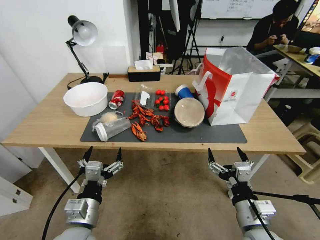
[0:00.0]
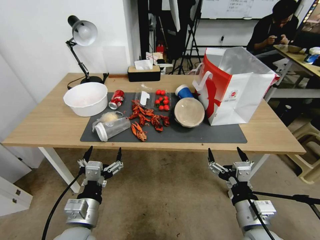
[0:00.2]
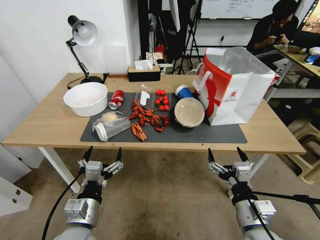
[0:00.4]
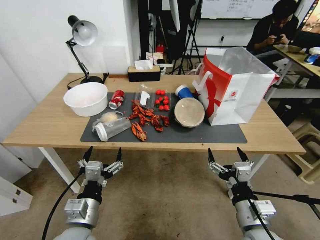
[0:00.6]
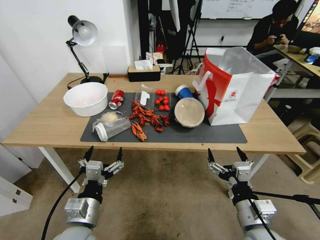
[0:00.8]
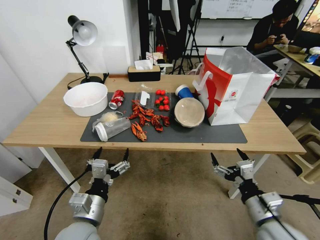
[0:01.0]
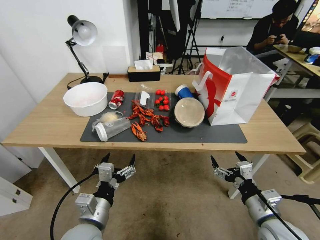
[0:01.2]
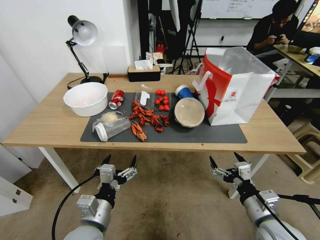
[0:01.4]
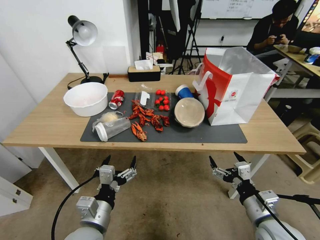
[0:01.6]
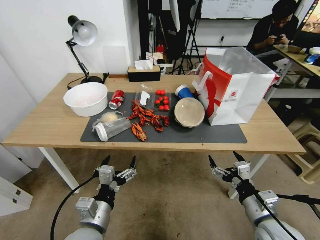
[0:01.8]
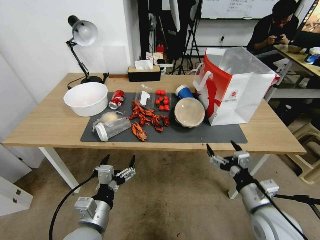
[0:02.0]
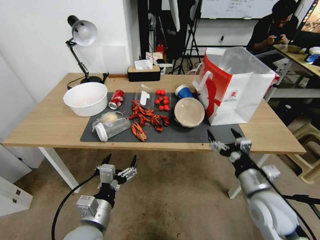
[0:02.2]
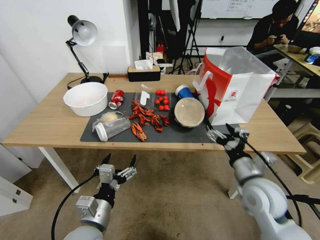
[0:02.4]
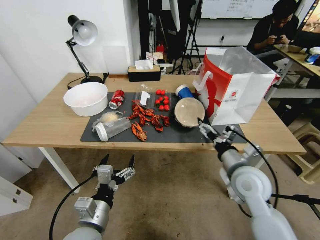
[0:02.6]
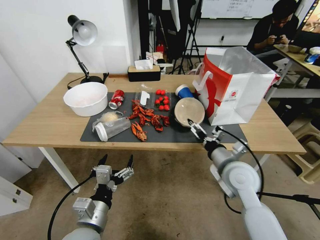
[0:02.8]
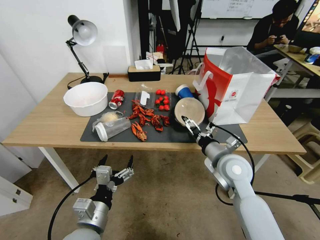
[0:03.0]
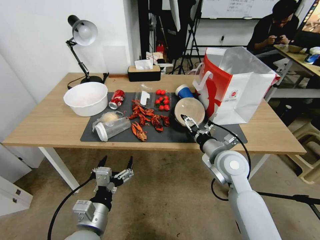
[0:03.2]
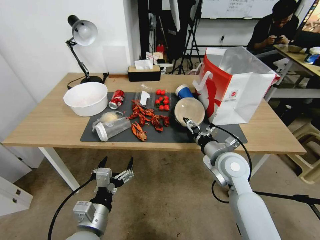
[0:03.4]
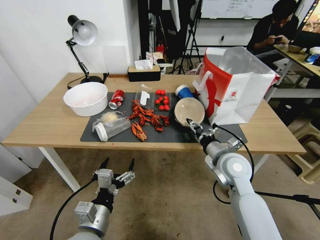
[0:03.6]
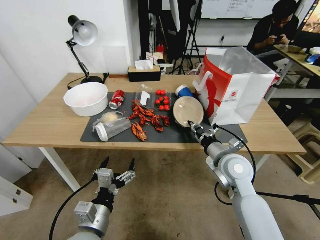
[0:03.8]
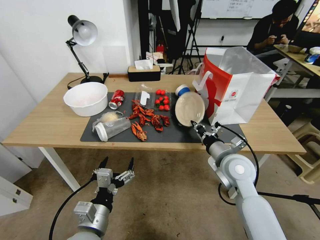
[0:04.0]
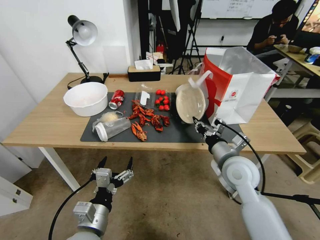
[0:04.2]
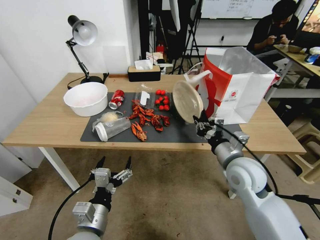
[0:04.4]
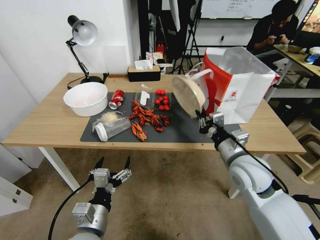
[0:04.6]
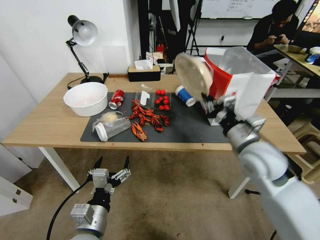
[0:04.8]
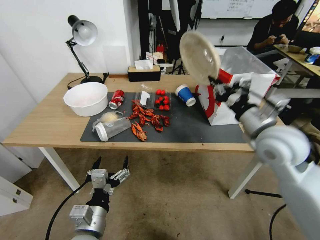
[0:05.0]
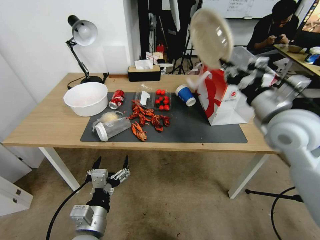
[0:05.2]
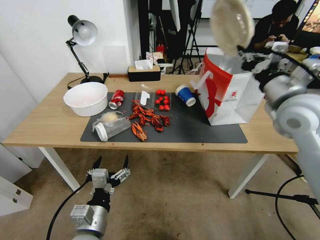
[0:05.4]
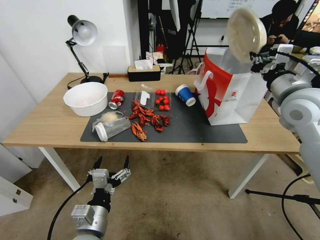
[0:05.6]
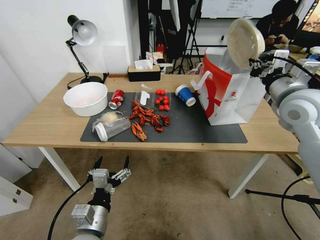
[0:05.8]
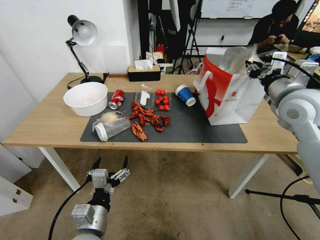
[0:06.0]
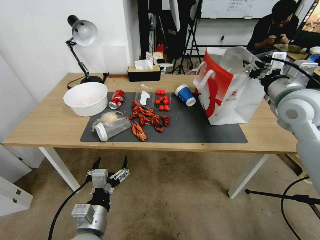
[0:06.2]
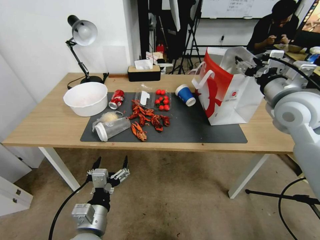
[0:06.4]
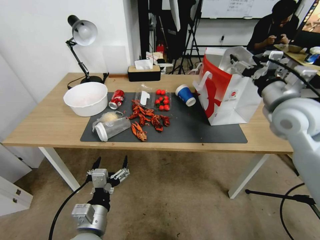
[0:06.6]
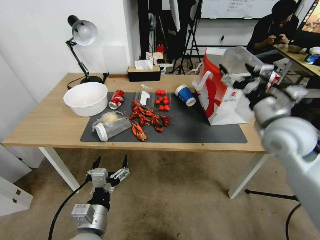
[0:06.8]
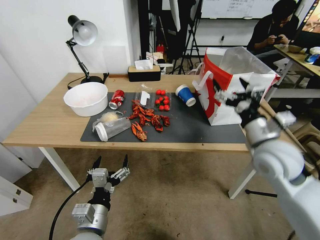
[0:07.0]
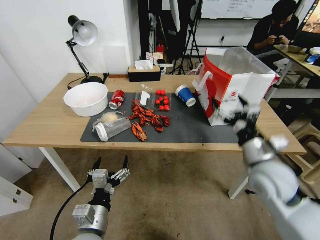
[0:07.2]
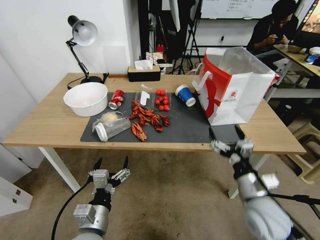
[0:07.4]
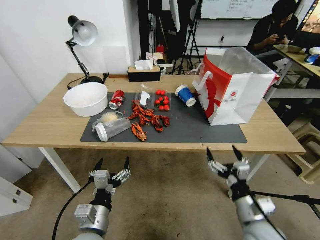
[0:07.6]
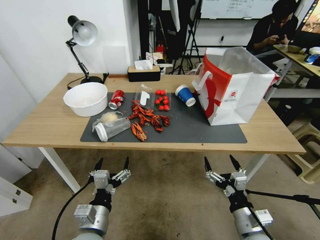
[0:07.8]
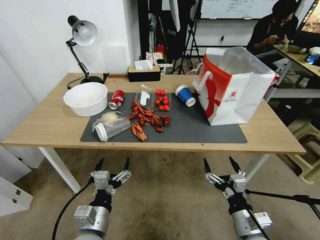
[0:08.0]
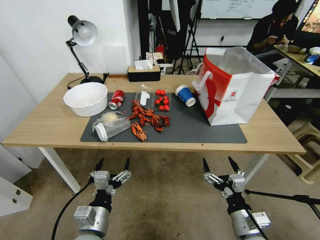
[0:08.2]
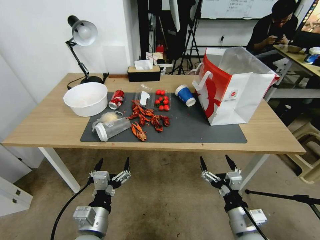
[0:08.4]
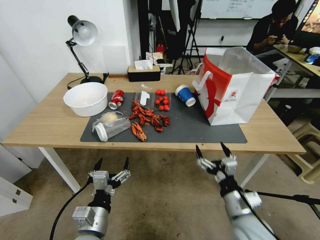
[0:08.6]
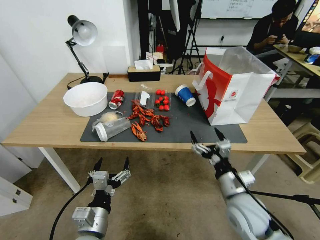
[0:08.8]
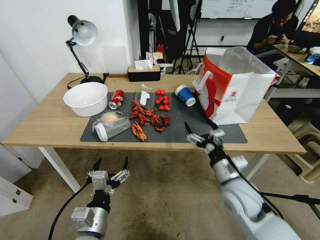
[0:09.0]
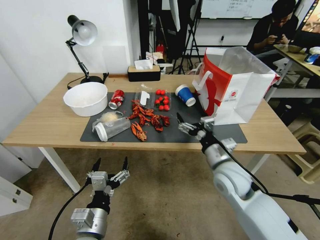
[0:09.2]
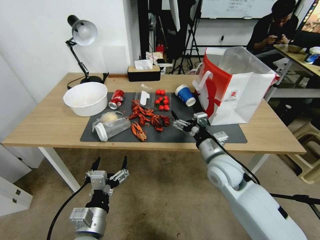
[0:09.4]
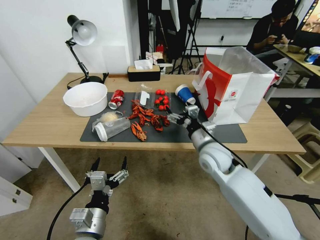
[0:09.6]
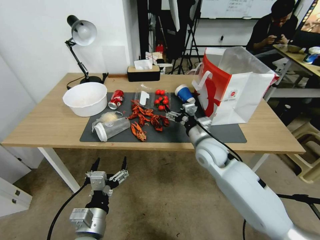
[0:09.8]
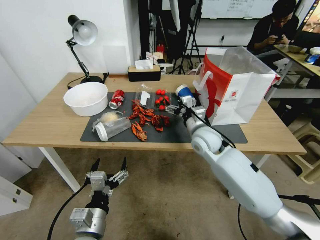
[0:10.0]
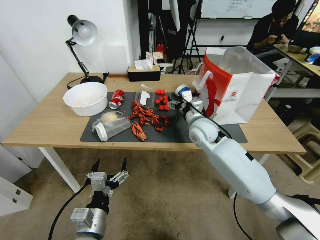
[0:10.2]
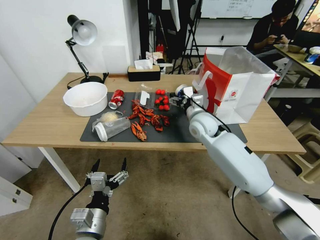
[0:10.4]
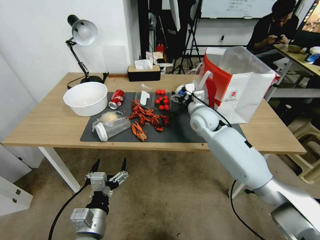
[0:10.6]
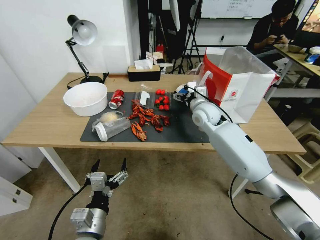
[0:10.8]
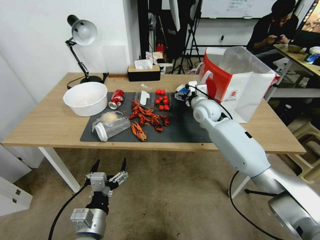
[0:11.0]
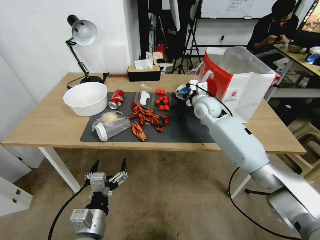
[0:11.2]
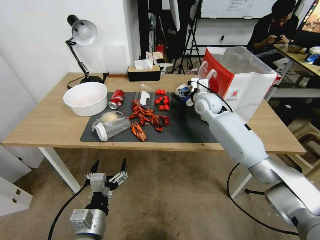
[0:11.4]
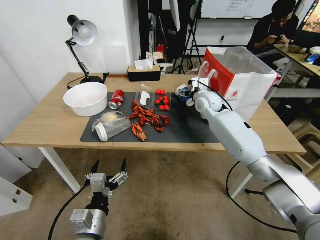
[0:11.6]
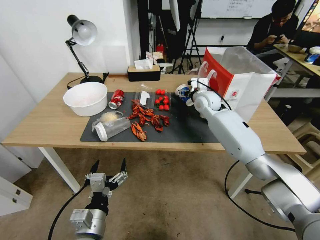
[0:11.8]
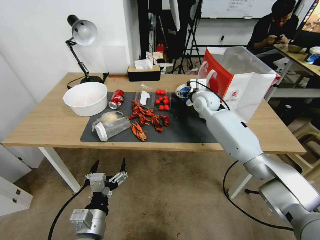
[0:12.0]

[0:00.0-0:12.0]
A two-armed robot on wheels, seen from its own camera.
0:01.6 to 0:03.0: The right gripper travels forward and to the left by approximately 15 cm.
0:03.0 to 0:04.4: The right gripper closes up.
0:04.4 to 0:06.0: The right gripper shifts roughly 20 cm upward, to the right and forward.
0:06.0 to 0:07.6: The right gripper moves downward and backward, approximately 35 cm, and opens up.
0:07.6 to 0:09.0: The right gripper is displaced forward by about 10 cm.
0:09.0 to 0:10.4: The right gripper shifts roughly 20 cm forward.
0:10.4 to 0:12.0: The right gripper heads forward, covering approximately 15 cm.

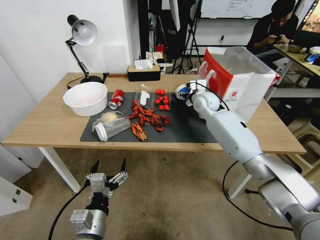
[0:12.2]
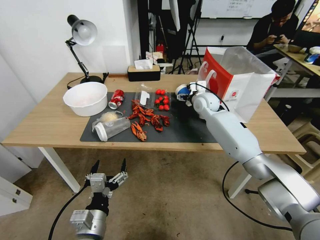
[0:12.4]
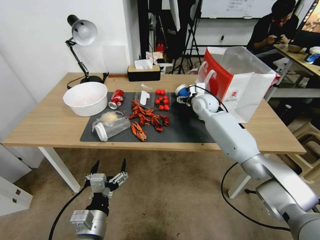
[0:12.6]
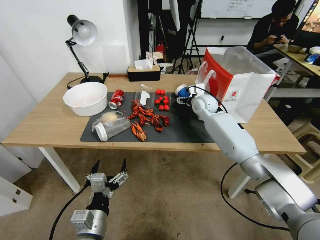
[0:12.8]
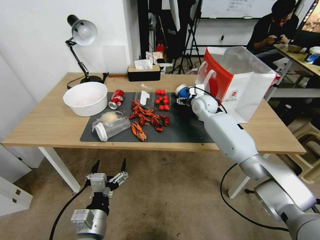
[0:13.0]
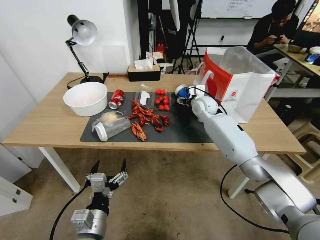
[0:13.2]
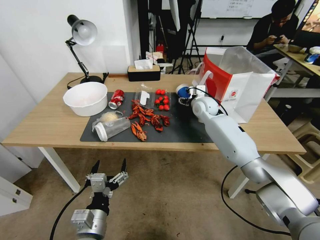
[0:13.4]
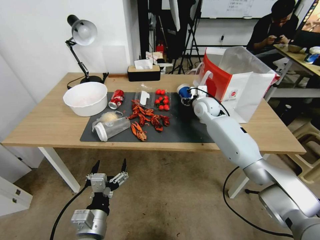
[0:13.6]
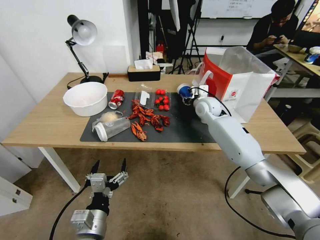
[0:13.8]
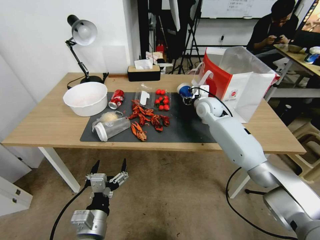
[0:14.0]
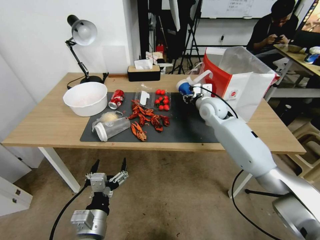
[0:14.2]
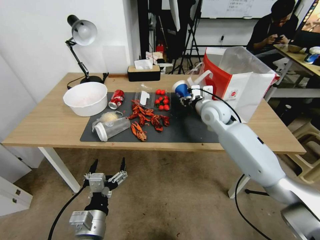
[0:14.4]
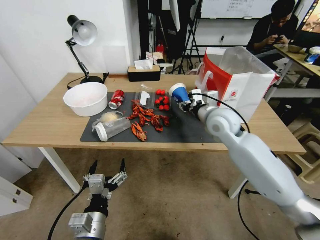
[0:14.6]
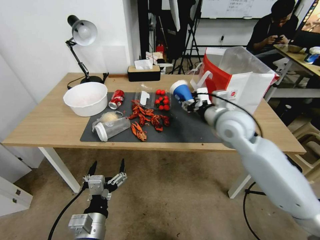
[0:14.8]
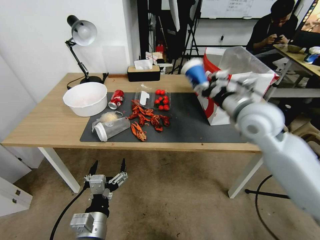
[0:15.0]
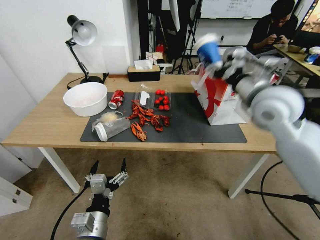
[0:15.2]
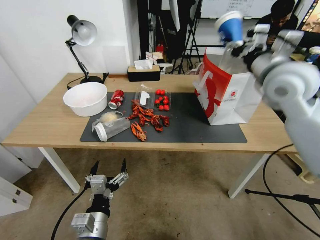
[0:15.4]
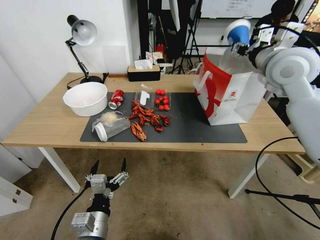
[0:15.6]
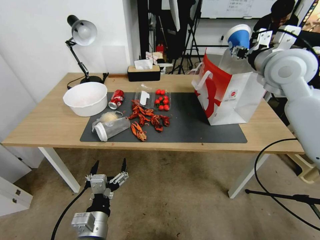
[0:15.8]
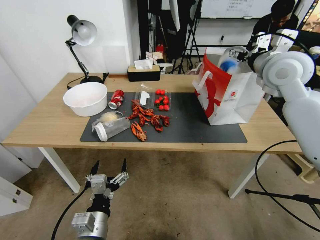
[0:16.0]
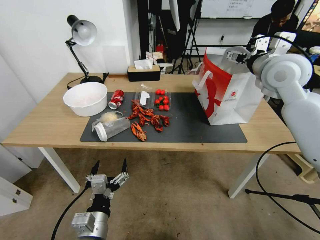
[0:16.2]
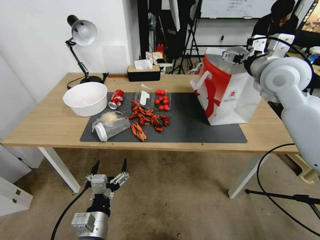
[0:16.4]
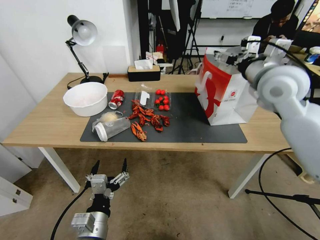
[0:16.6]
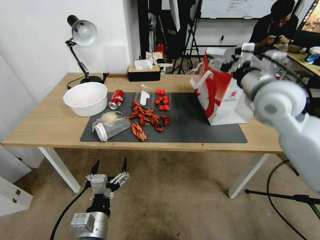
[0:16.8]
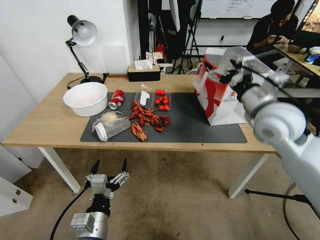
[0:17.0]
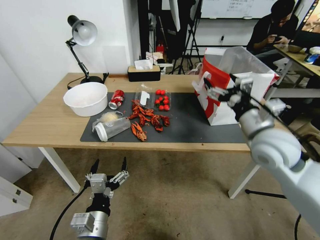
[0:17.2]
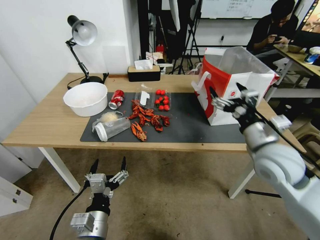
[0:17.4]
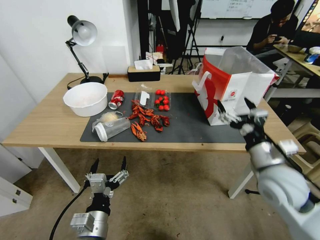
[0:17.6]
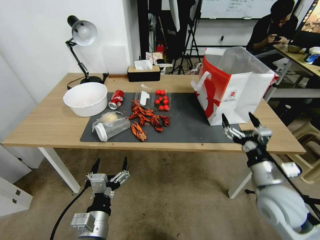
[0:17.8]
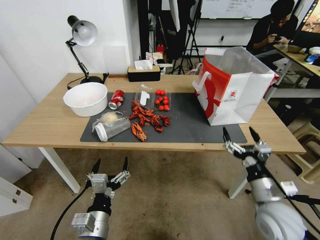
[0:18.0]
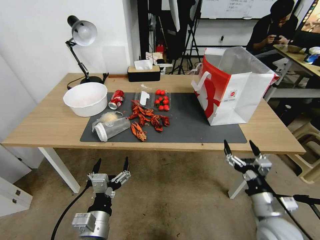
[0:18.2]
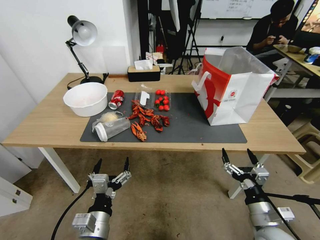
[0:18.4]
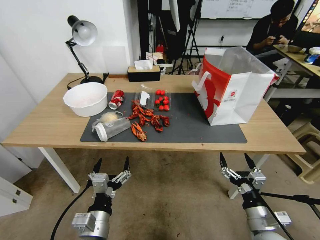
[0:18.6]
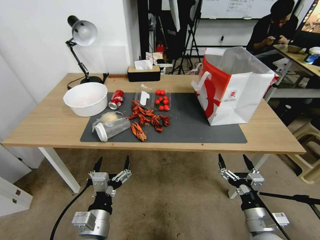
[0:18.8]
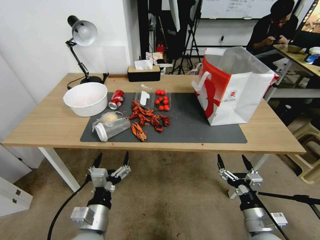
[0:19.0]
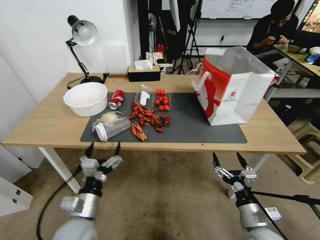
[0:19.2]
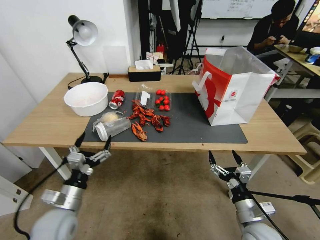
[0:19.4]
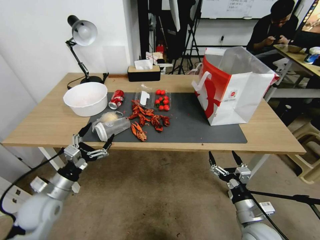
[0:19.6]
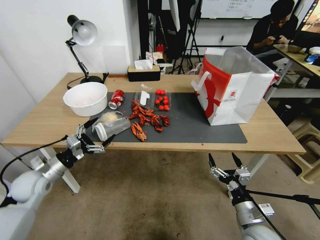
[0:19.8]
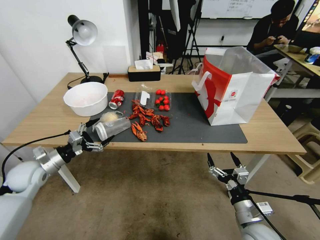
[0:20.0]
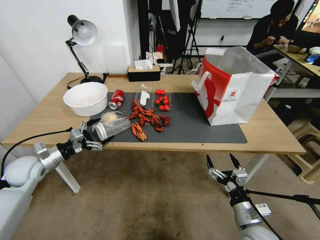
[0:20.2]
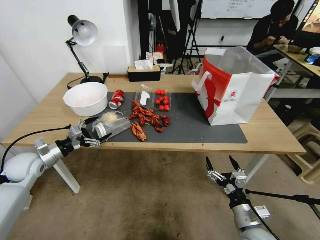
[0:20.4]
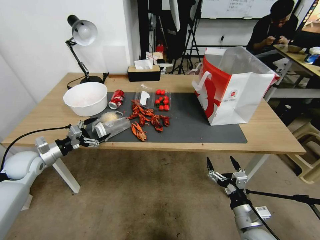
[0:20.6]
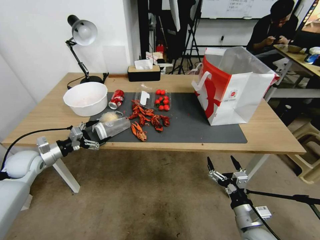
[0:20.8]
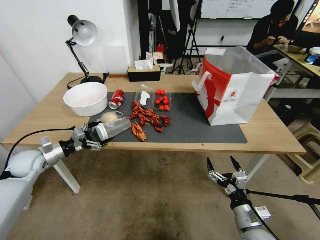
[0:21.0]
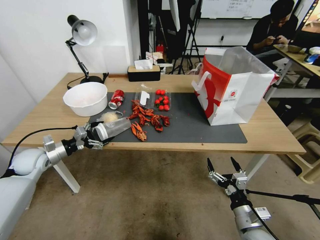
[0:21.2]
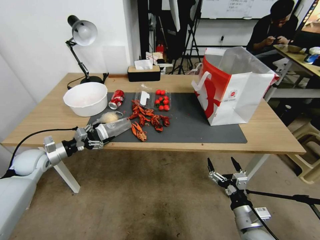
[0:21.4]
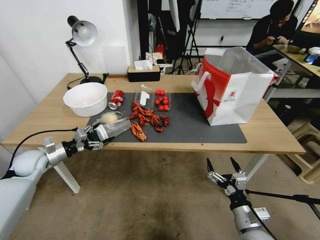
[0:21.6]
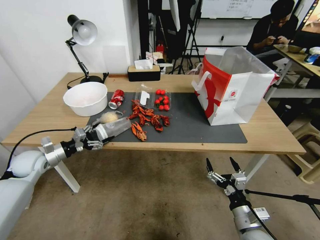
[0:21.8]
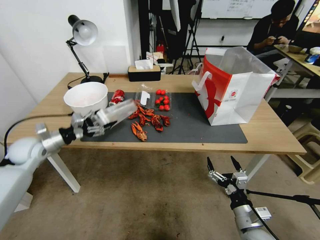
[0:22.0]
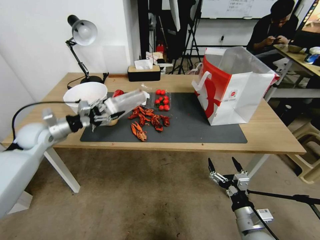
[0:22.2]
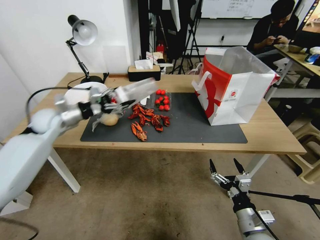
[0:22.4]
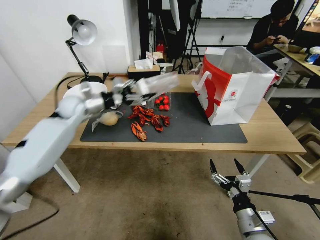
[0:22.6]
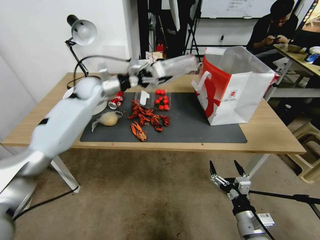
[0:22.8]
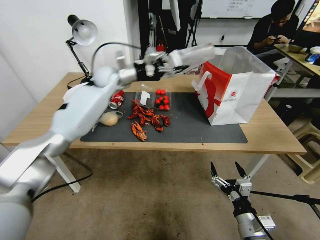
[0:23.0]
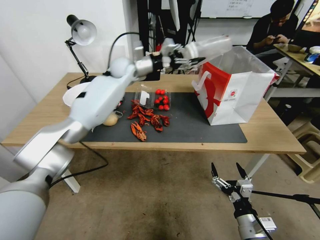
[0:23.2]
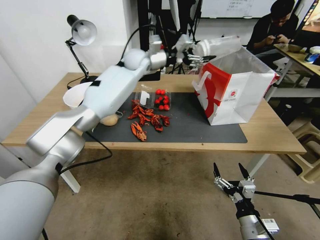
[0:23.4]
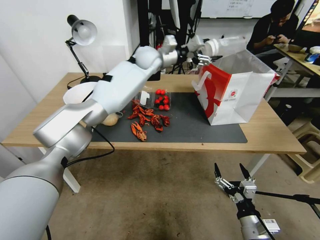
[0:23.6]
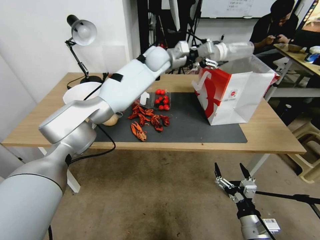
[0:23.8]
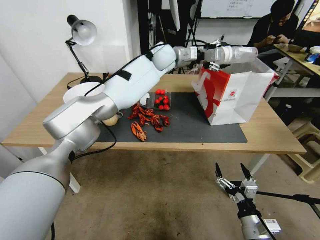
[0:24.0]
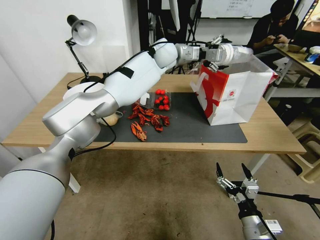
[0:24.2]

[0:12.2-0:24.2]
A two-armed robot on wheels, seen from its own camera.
0:12.2 to 0:13.8: The right gripper closes.
0:13.8 to 0:15.2: The right gripper moves backward and upward, about 25 cm.
0:15.2 to 0:16.6: The right gripper travels forward by about 5 cm, and opens.
0:16.6 to 0:18.2: The right gripper heads downward and backward, covering about 40 cm.
0:18.2 to 0:19.8: The left gripper moves to the left and forward, some 25 cm. Meanwhile the right gripper moves about 5 cm.
0:19.8 to 0:21.2: The left gripper goes approximately 10 cm forward and to the left.
0:21.2 to 0:22.6: The left gripper moves to the right, forward and upward, some 25 cm.
0:22.6 to 0:24.2: The left gripper is displaced to the right and upward by about 35 cm.
